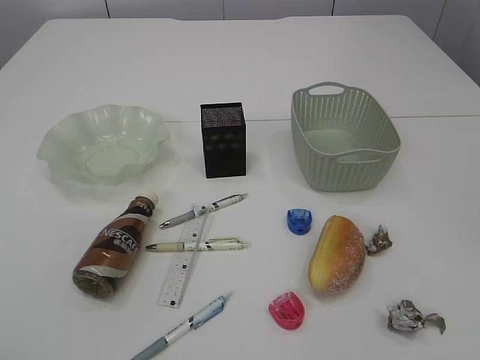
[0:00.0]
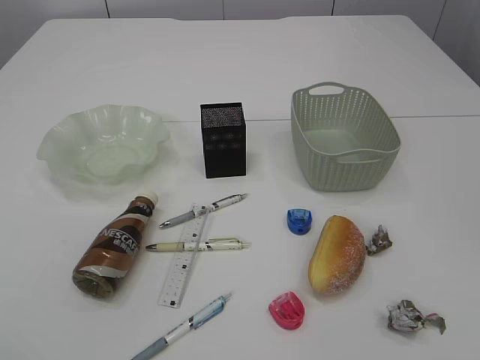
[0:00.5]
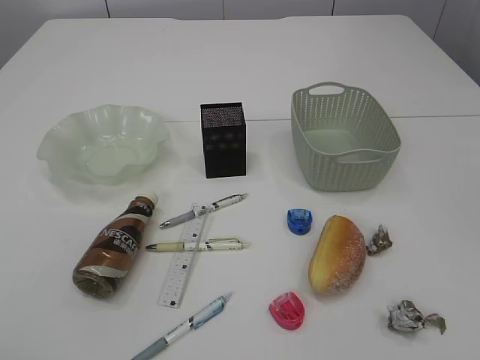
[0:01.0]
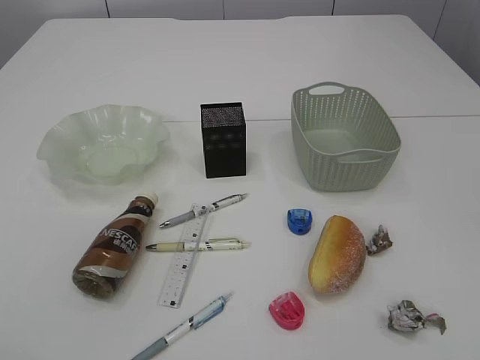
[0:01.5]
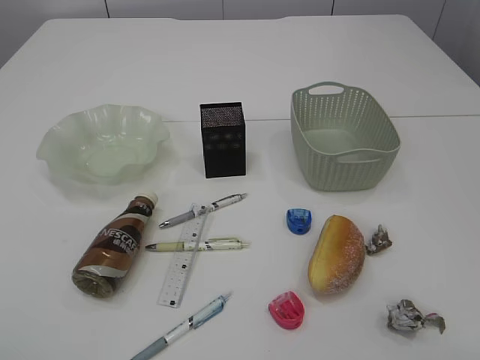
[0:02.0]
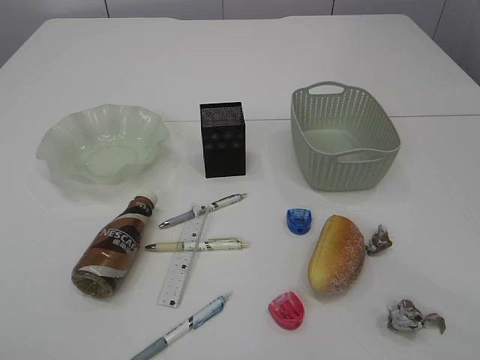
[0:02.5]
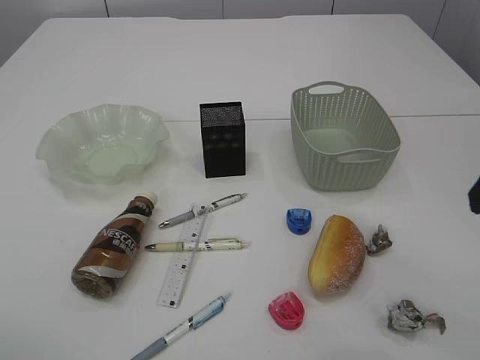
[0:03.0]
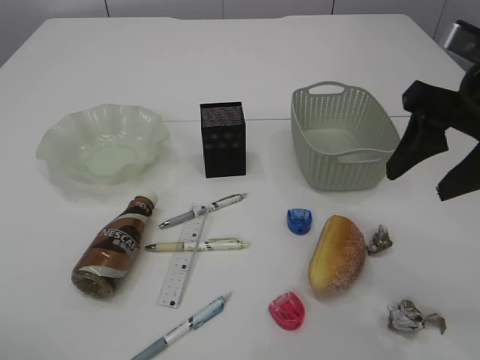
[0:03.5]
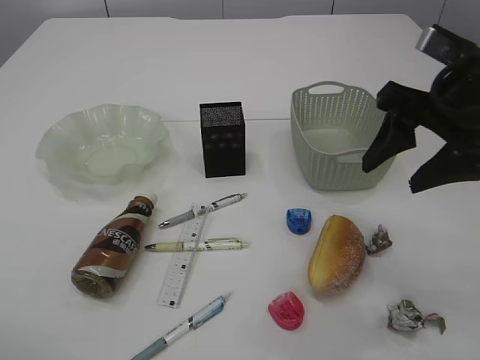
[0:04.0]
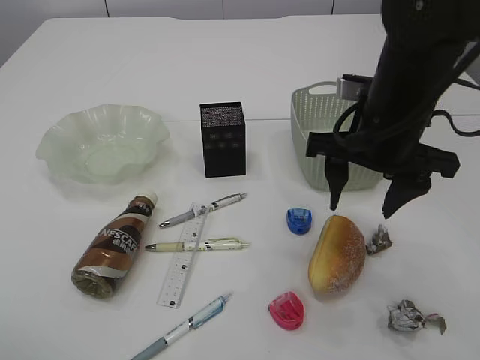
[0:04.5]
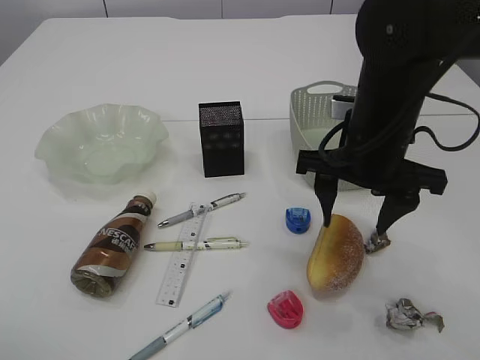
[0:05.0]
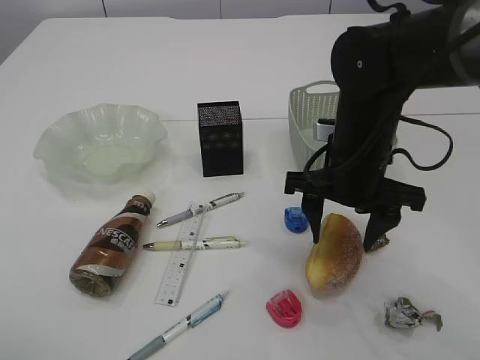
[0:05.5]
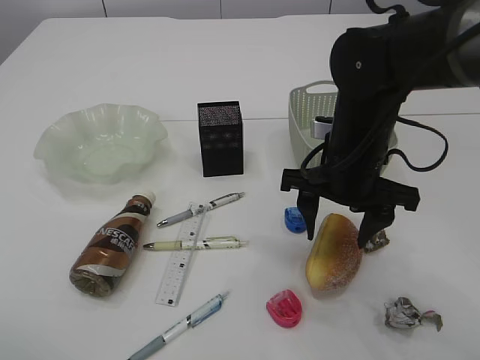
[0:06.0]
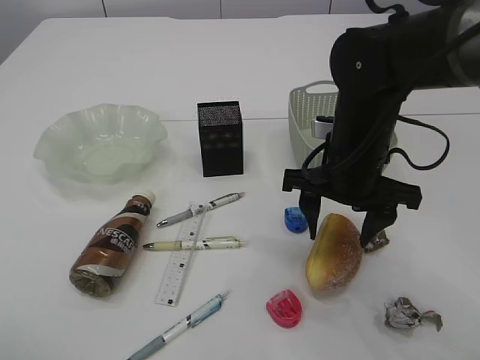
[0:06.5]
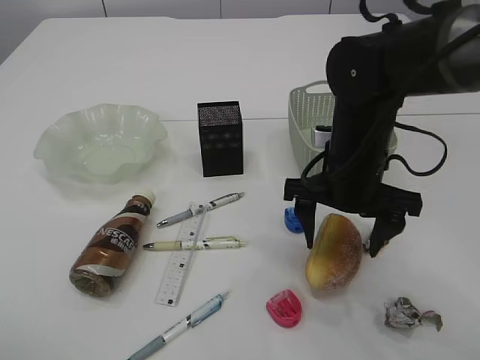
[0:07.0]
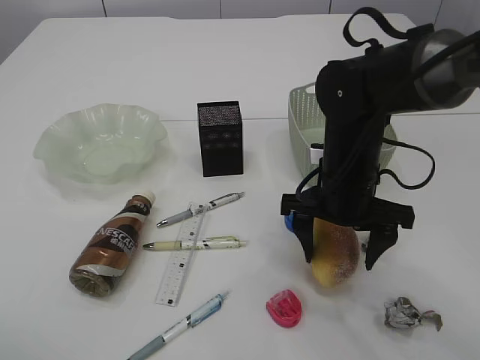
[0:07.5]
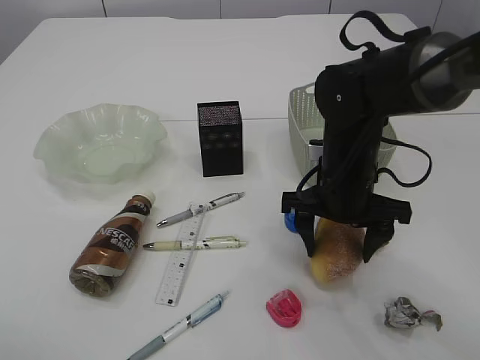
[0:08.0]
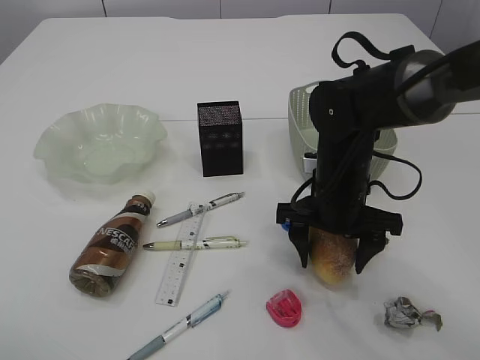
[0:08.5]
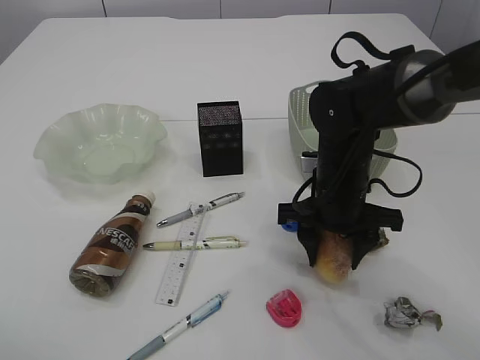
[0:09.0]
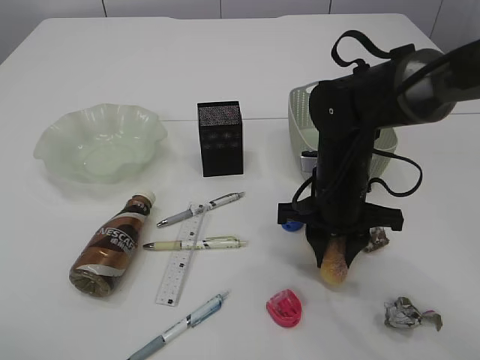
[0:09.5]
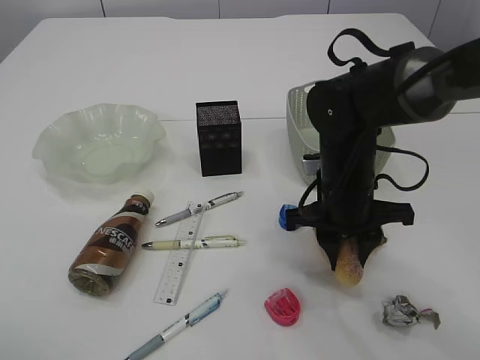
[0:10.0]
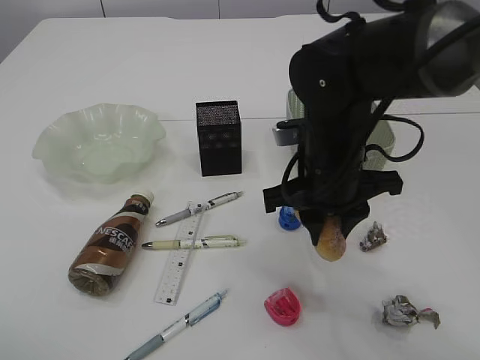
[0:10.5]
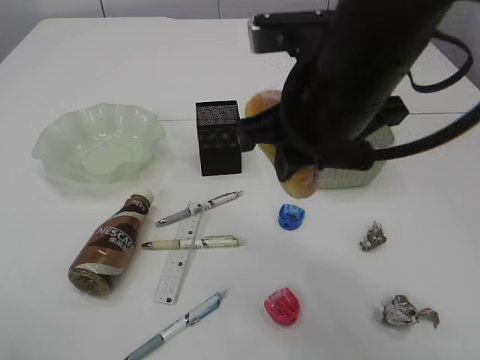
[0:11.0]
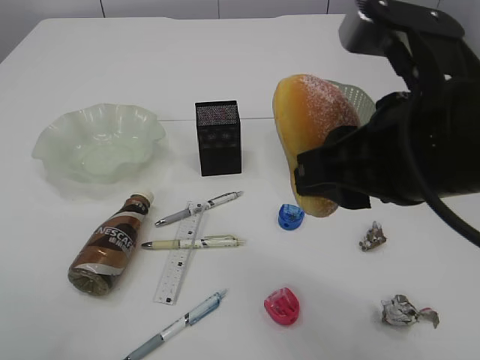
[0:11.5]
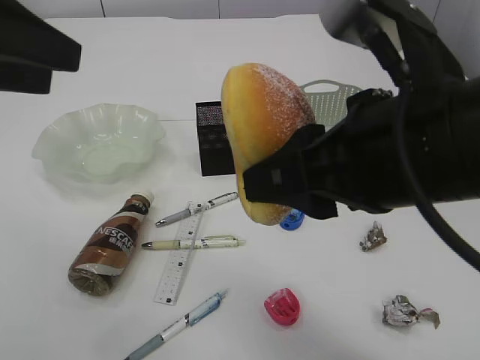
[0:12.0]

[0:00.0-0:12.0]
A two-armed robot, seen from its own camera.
0:02.0 to 0:04.0: The right gripper travels forward by about 25 cm.
0:04.0 to 0:06.0: The right gripper heads downward and to the left, covering roughly 15 cm.
0:06.0 to 0:08.0: There are only small adjustments of the grippers.
0:08.0 to 0:10.0: The right gripper closes up.
0:10.0 to 0:12.0: The left gripper goes roughly 10 cm to the right and forward; the right gripper travels upward and backward by some 25 cm.

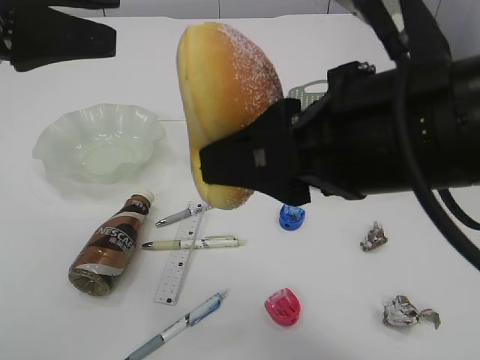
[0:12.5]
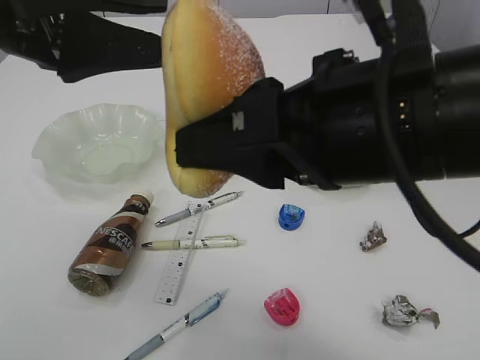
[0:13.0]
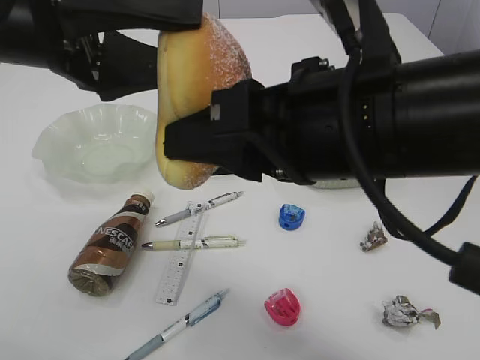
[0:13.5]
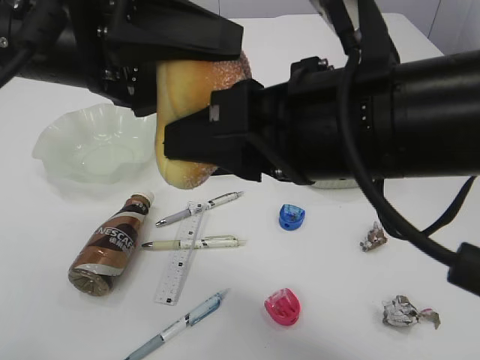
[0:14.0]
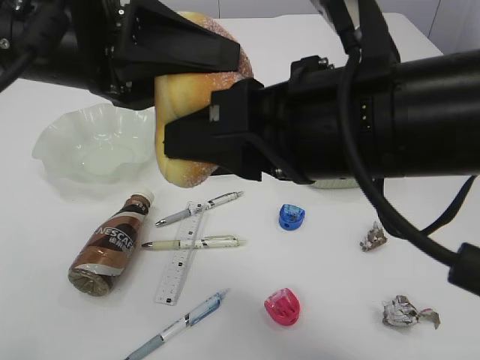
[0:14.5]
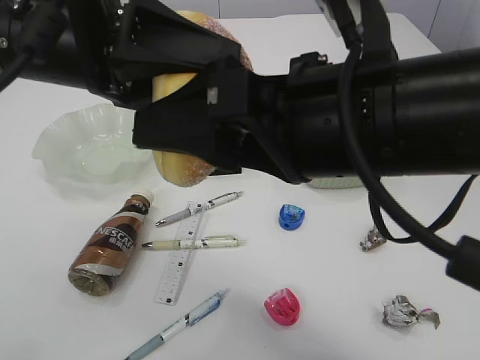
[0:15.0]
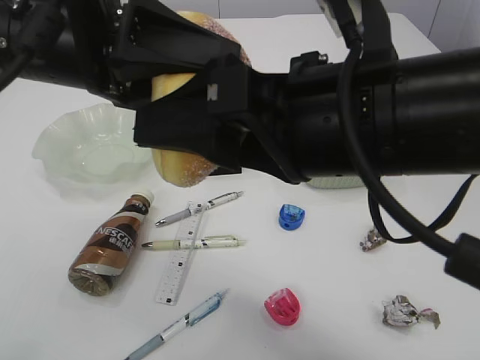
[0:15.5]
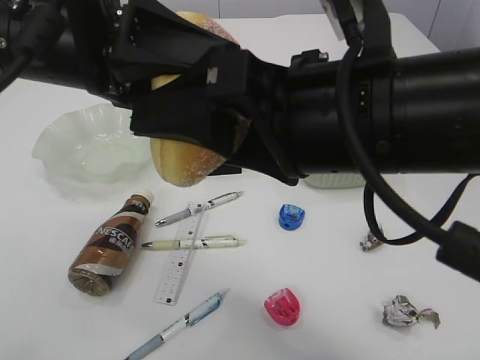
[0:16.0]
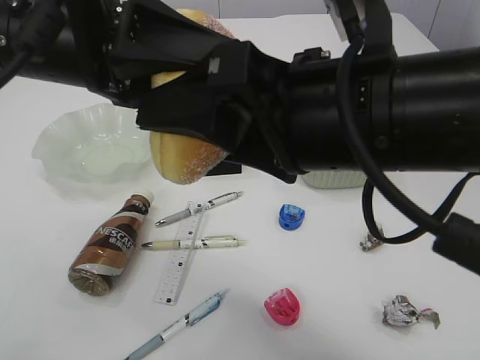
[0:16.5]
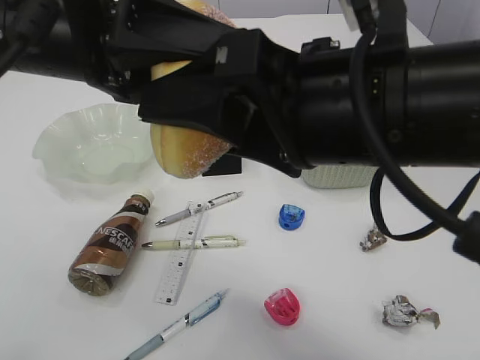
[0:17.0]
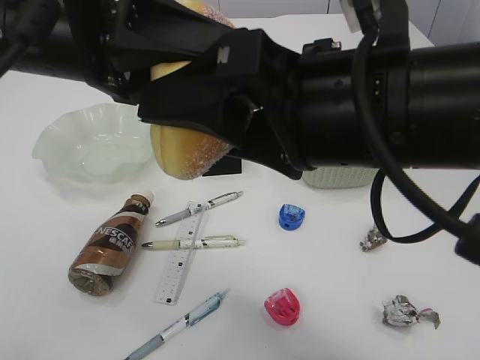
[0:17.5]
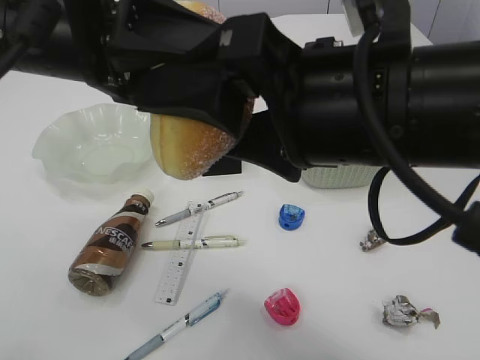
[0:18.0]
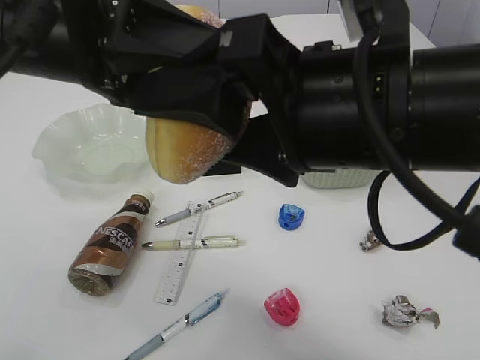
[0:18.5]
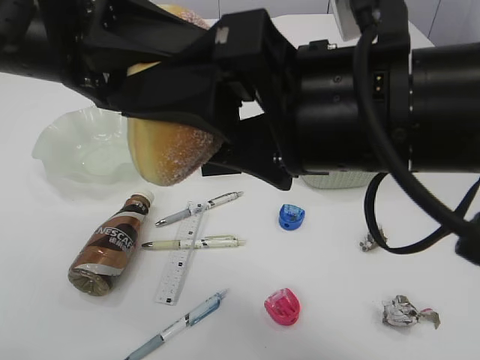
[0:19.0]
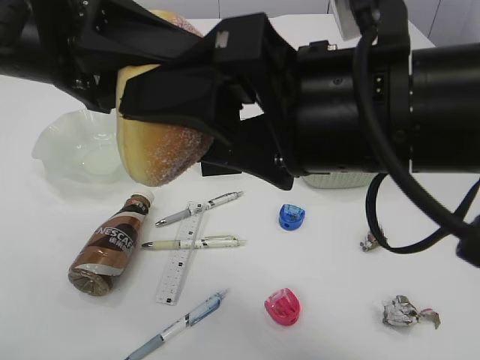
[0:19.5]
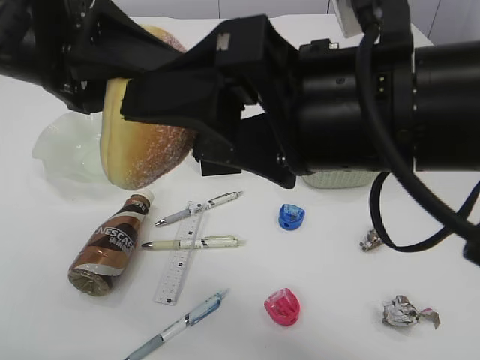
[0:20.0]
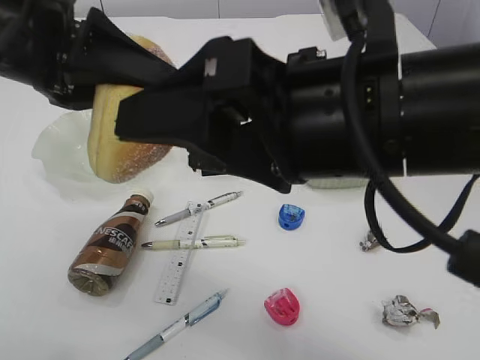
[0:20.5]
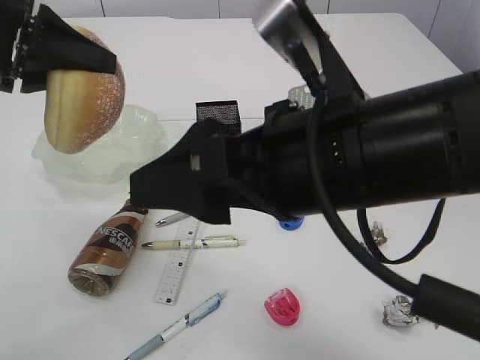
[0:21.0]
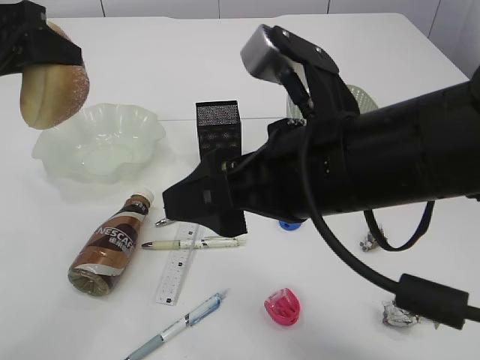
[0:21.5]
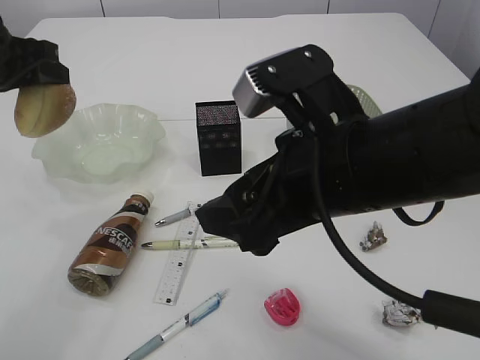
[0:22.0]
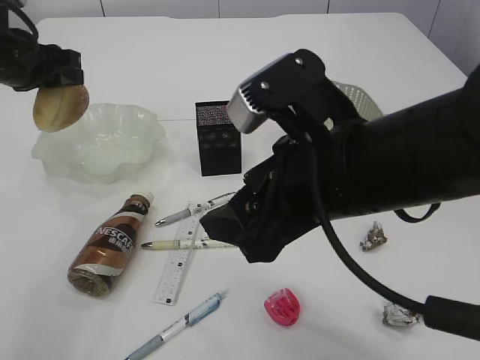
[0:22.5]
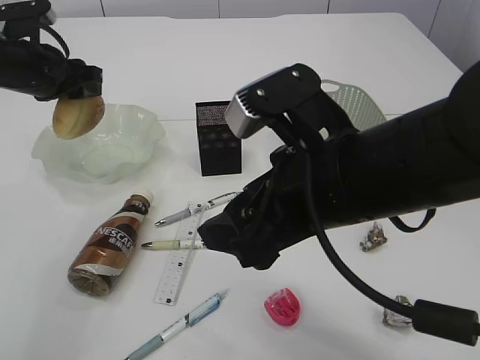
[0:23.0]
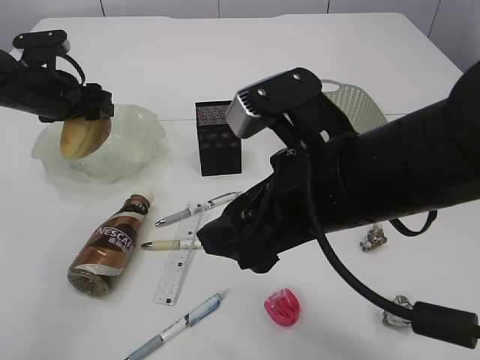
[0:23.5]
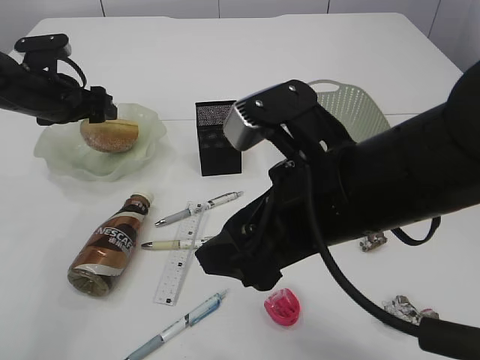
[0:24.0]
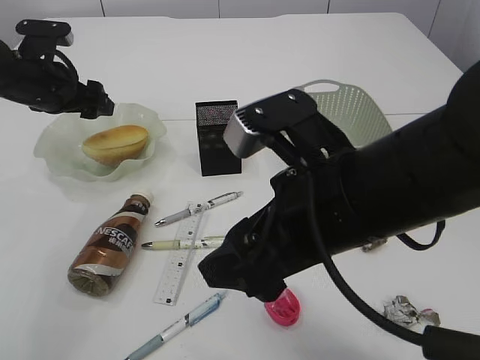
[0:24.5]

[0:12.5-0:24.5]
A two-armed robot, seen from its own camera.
Step, 0:12.5 to 0:21.0: Hand over the bread.
0:12.5 to 0:14.5: The left gripper shifts roughly 10 cm to the right, and closes its fingers.
0:14.5 to 0:16.5: The right gripper opens up.
0:16.5 to 0:18.5: The grippers stay close to where they were, moving slightly.
0:18.5 to 0:20.5: The left gripper changes place by roughly 5 cm.
0:20.5 to 0:22.5: The left gripper is displaced forward, to the left and downward by roughly 20 cm; the right gripper goes some 5 cm downward.
0:22.5 to 0:24.5: The left gripper heads downward, covering roughly 5 cm, and opens.

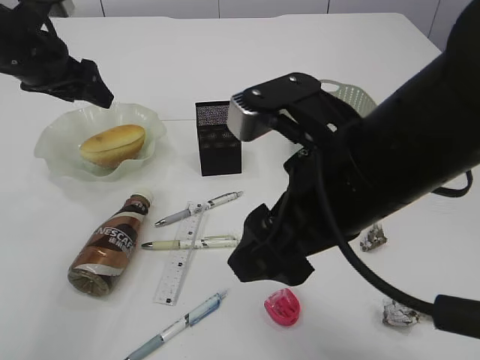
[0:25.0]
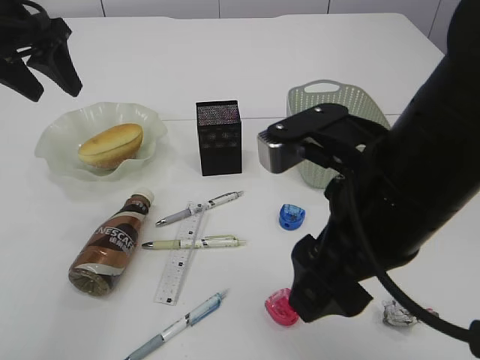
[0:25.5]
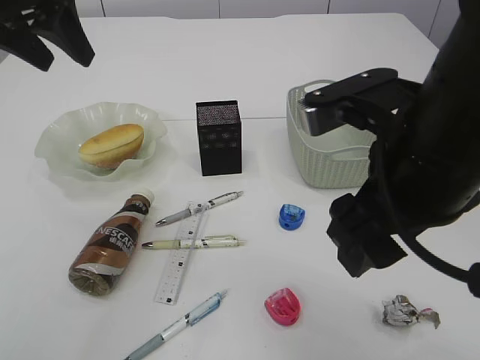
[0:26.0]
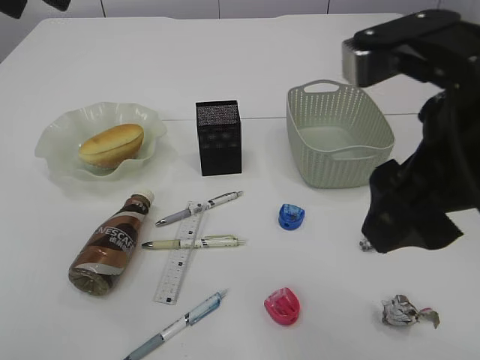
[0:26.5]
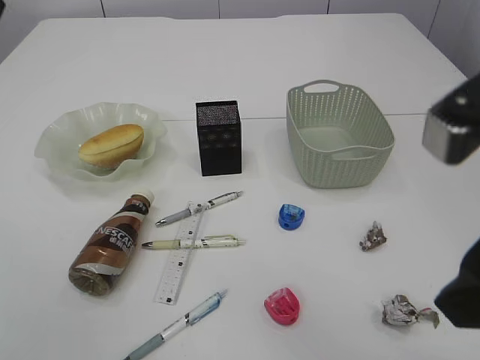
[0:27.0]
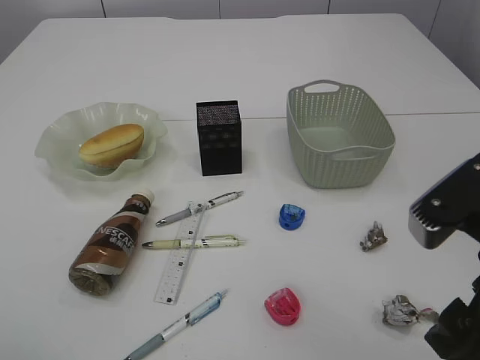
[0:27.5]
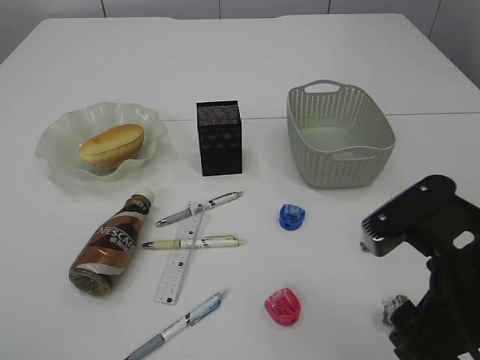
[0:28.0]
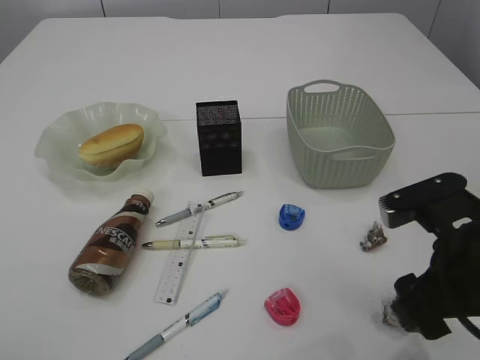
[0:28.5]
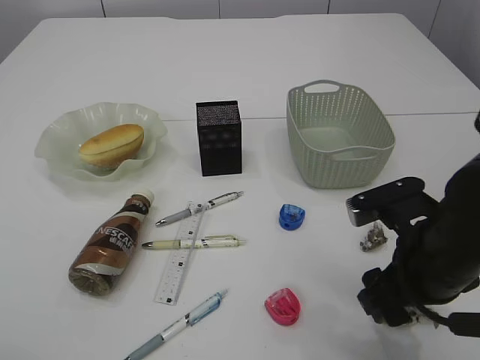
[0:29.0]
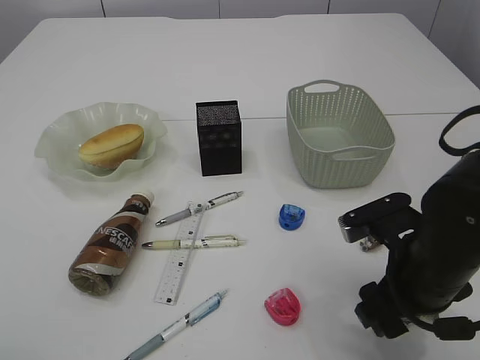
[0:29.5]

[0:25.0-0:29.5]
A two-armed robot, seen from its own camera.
0:25.0 to 0:27.0: The right gripper heads to the right and backward, covering approximately 10 cm. The left gripper is displaced backward and upward by some 25 cm.
0:27.0 to 0:29.5: The right gripper shifts about 20 cm downward and forward.
